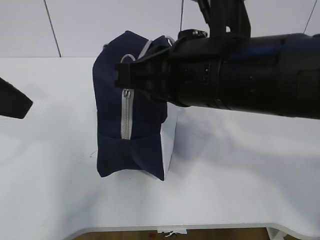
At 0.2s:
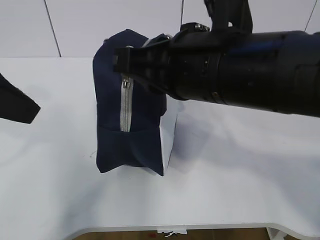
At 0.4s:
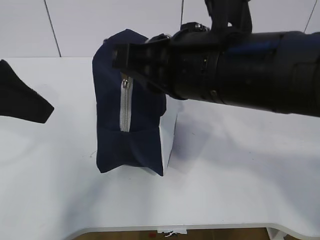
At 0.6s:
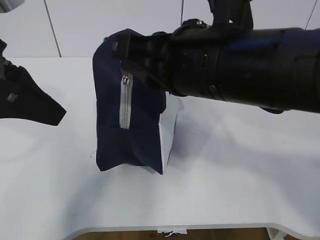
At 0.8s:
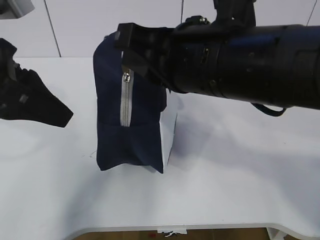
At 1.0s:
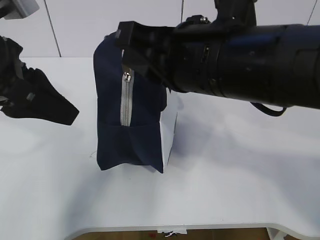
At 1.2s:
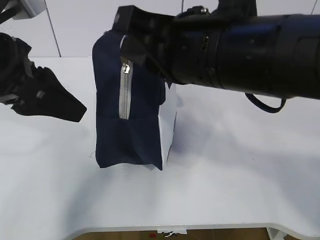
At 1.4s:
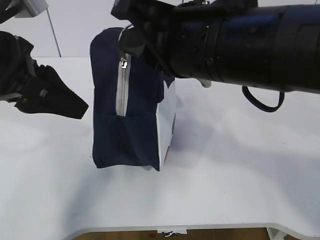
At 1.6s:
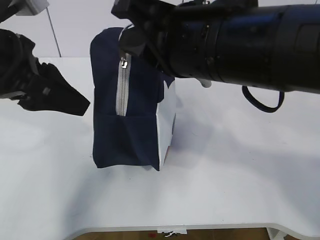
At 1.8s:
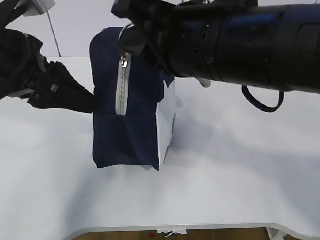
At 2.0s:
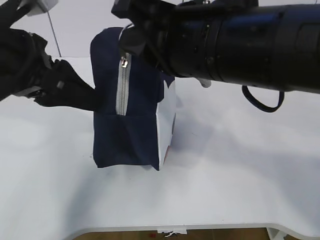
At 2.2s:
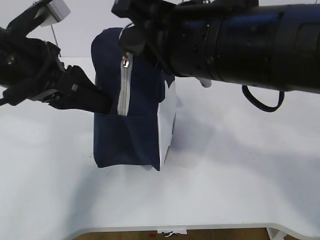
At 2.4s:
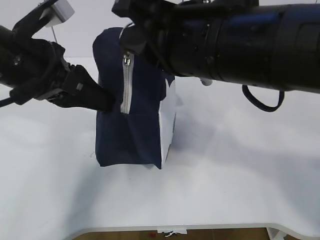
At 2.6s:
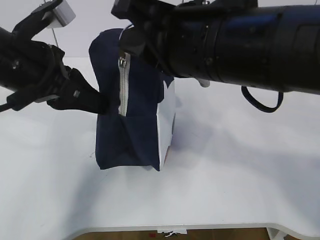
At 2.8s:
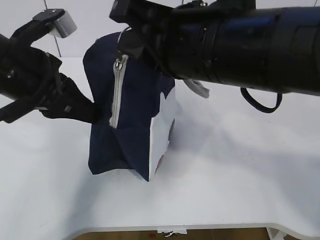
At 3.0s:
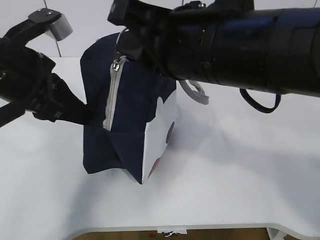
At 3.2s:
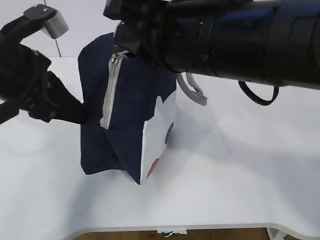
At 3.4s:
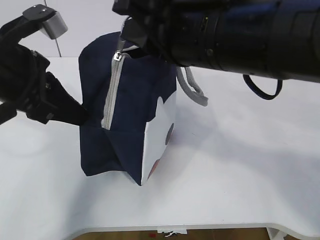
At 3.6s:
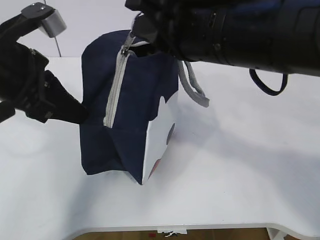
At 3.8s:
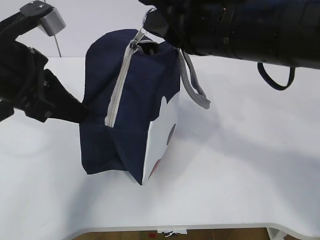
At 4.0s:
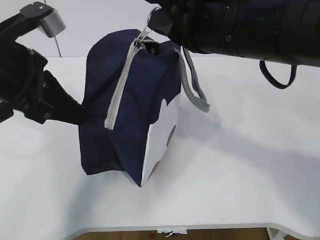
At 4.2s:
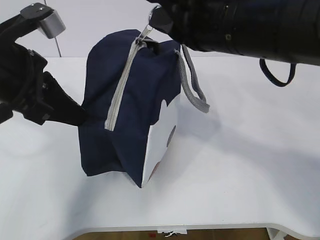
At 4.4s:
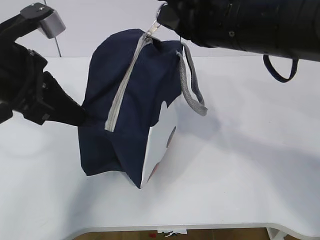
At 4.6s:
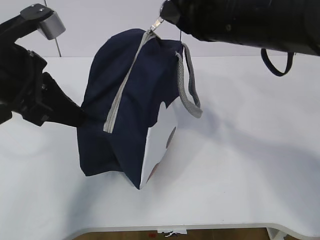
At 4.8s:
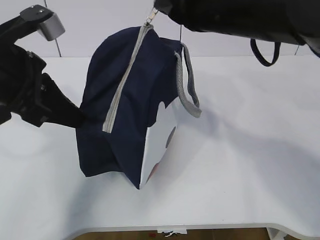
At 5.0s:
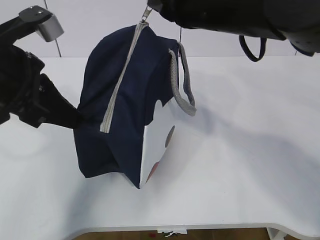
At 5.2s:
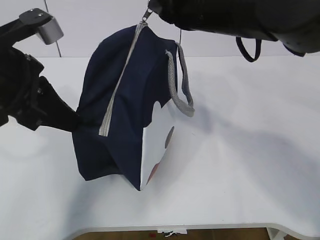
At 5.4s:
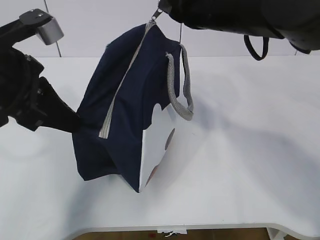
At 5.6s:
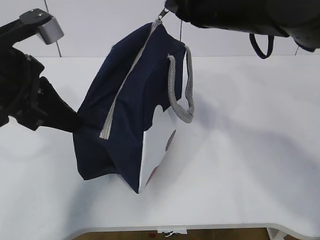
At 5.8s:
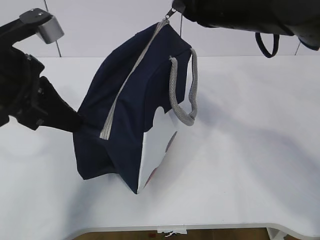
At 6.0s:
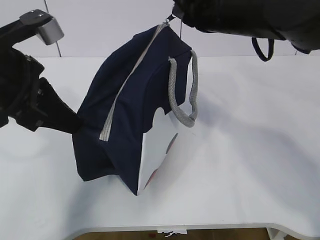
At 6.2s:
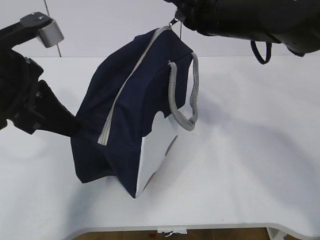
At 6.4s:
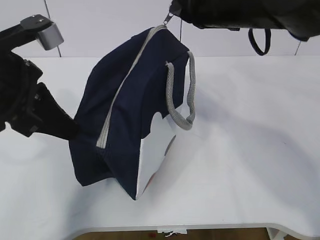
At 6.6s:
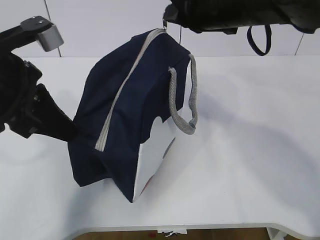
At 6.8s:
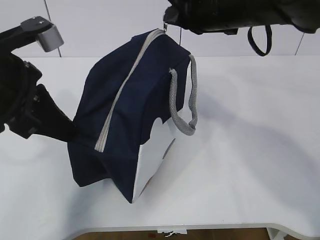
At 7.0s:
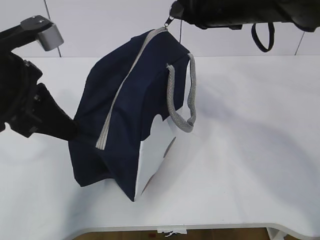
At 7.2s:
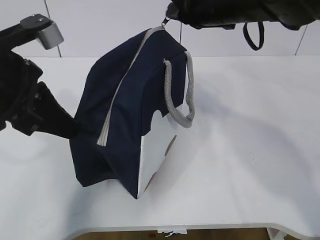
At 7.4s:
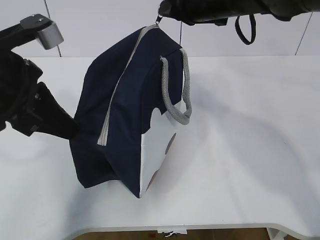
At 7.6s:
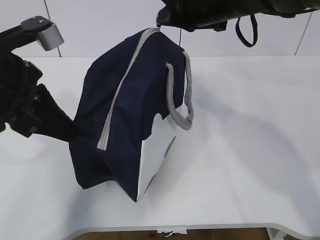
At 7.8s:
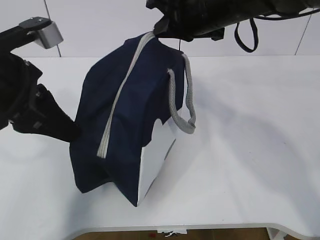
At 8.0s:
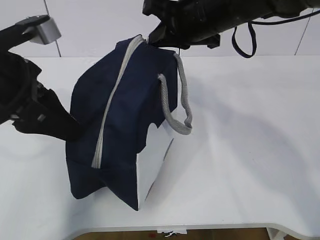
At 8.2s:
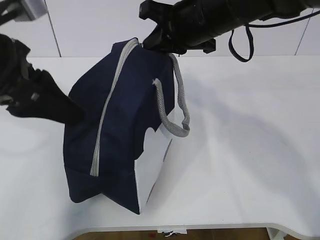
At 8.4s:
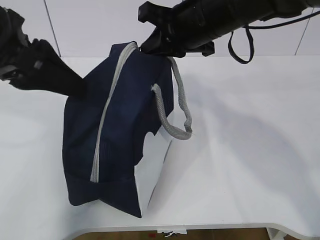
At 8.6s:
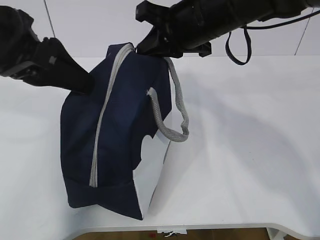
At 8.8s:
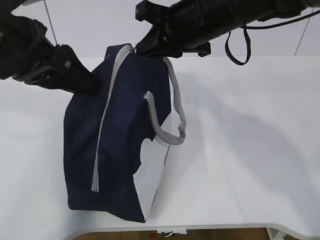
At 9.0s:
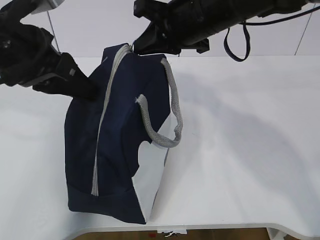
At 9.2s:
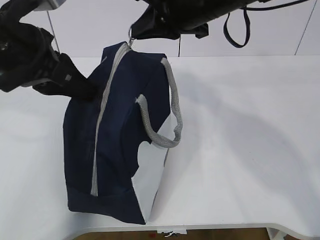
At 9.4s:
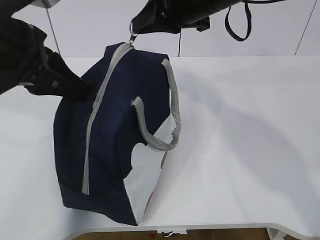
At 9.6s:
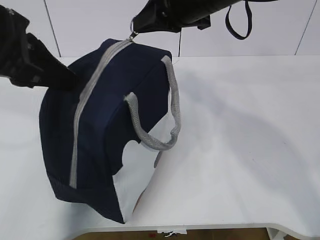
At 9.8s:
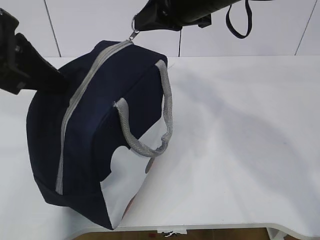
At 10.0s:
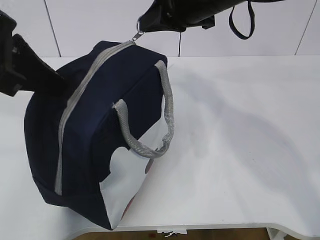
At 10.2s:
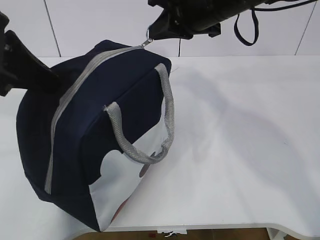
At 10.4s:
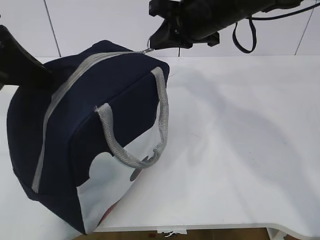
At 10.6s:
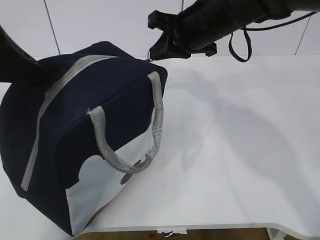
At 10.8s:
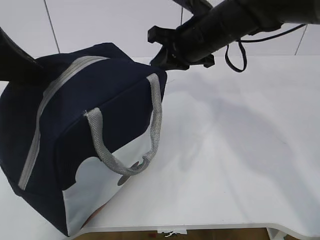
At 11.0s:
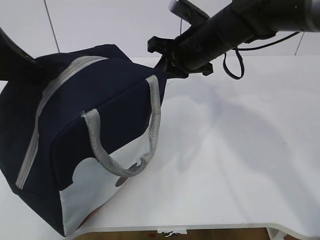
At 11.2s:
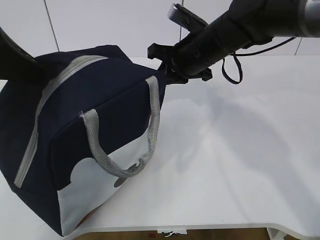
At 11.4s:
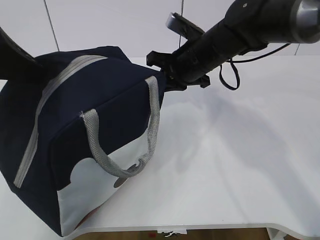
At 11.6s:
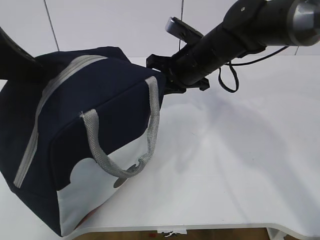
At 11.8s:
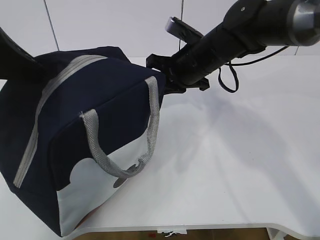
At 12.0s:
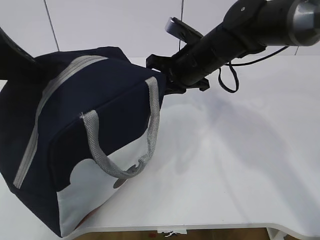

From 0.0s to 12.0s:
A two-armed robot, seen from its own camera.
From 0.0s to 1.6s: The left gripper changes place by roughly 5 cm.
From 1.6s to 3.0s: The left gripper closes.
From 3.0s to 4.4s: The right gripper moves roughly 5 cm.
From 4.4s to 6.0s: The right gripper shifts approximately 10 cm forward.
From 6.0s to 7.6s: The grippers move only a little.
From 7.6s to 9.0s: The left gripper opens, then closes once more.
From 9.0s to 10.4s: The left gripper changes place by roughly 5 cm.
From 10.4s to 12.0s: The right gripper goes approximately 10 cm downward.

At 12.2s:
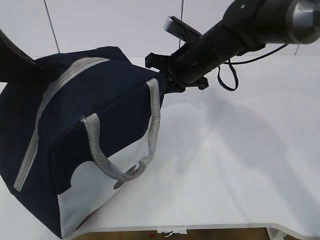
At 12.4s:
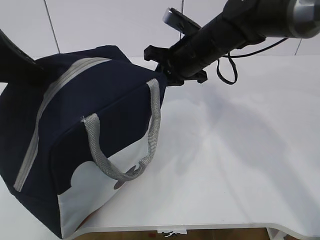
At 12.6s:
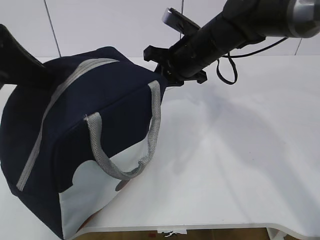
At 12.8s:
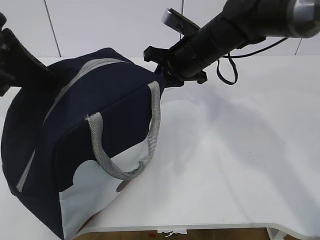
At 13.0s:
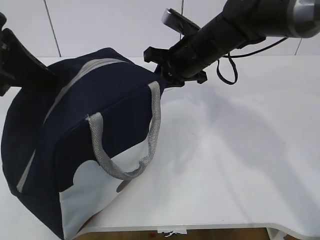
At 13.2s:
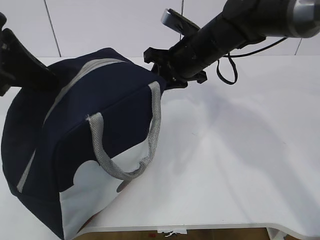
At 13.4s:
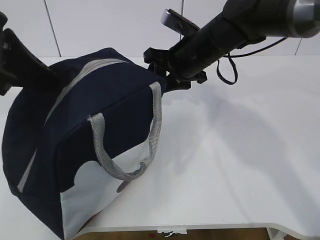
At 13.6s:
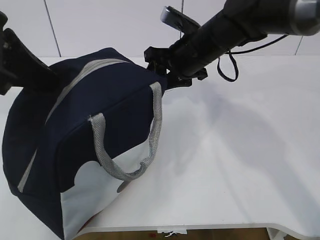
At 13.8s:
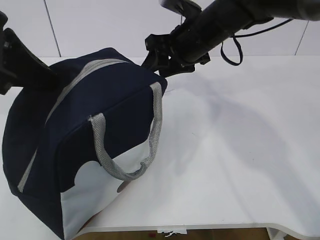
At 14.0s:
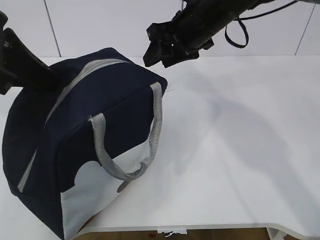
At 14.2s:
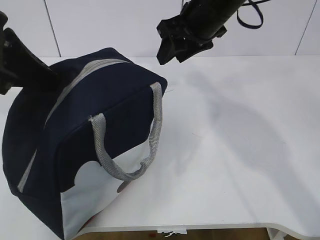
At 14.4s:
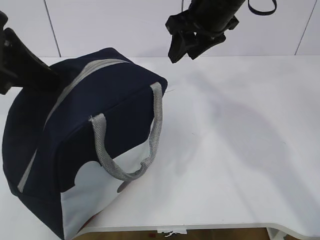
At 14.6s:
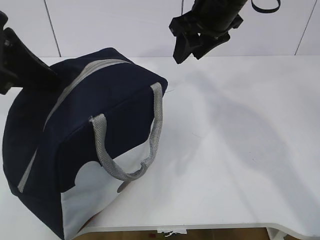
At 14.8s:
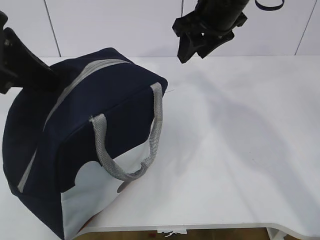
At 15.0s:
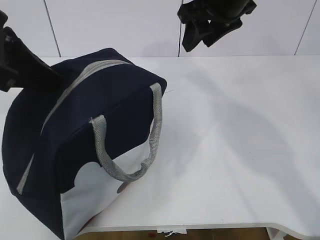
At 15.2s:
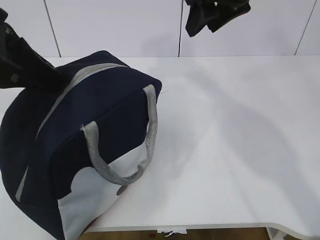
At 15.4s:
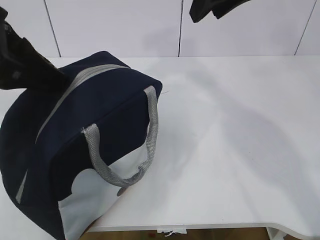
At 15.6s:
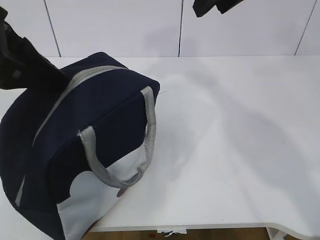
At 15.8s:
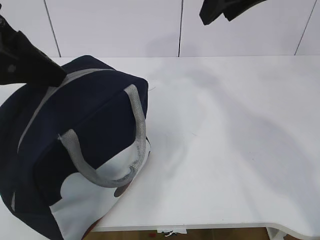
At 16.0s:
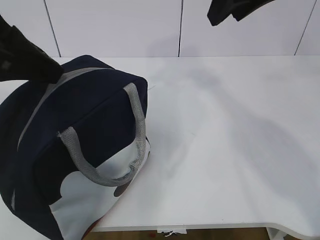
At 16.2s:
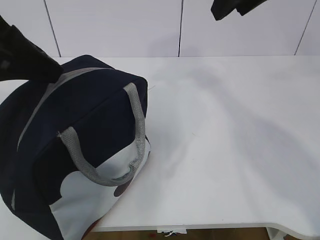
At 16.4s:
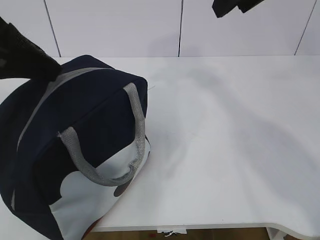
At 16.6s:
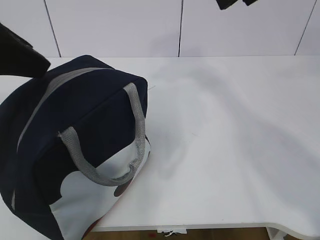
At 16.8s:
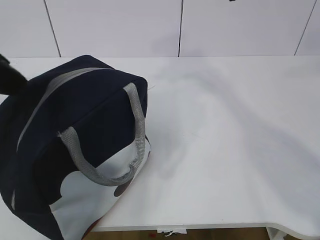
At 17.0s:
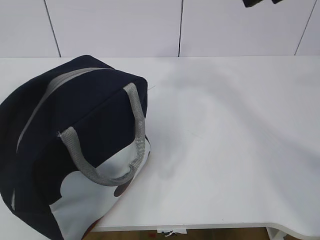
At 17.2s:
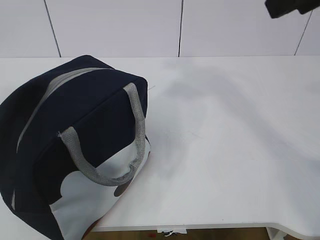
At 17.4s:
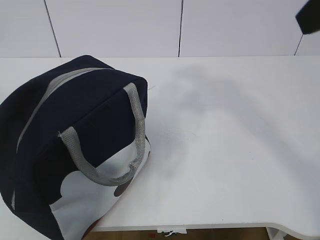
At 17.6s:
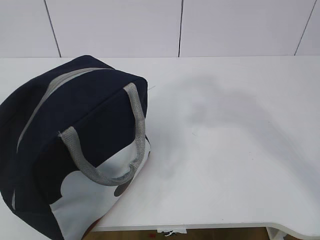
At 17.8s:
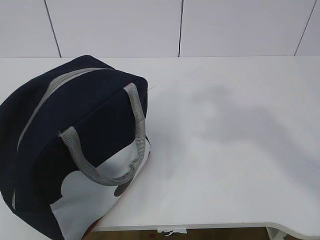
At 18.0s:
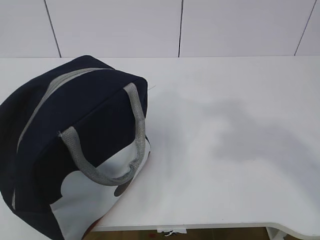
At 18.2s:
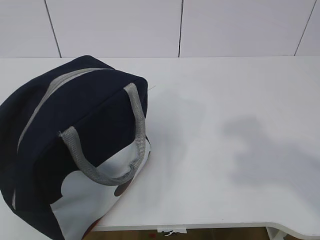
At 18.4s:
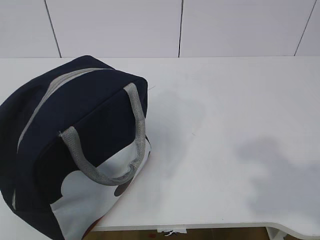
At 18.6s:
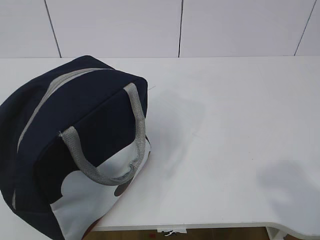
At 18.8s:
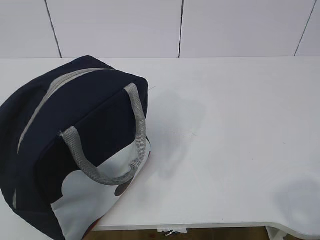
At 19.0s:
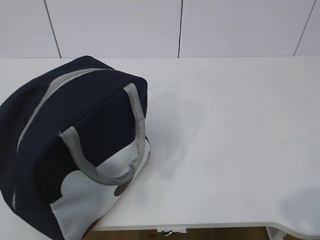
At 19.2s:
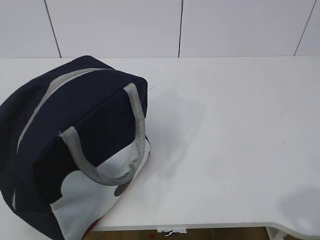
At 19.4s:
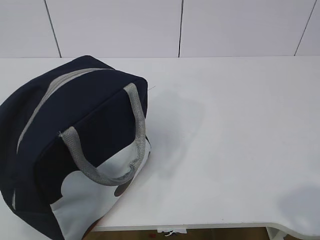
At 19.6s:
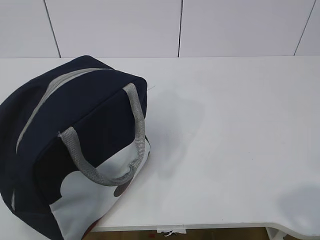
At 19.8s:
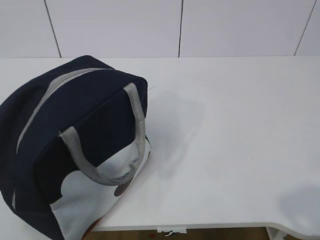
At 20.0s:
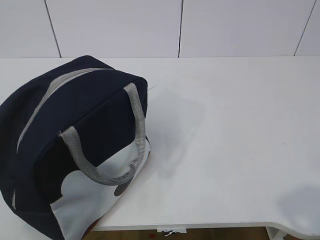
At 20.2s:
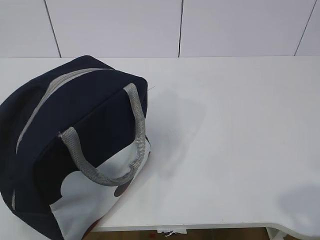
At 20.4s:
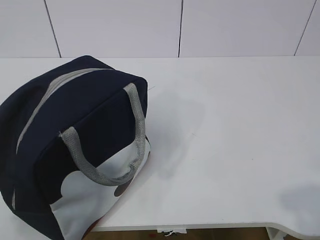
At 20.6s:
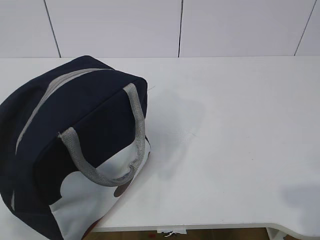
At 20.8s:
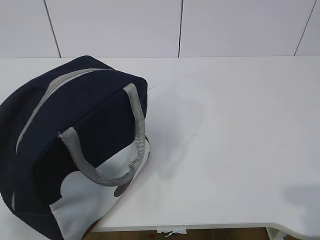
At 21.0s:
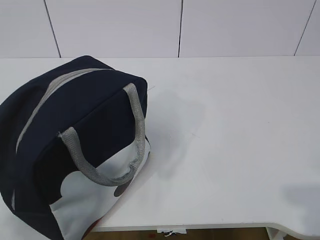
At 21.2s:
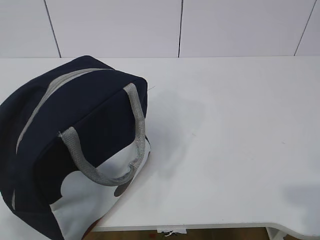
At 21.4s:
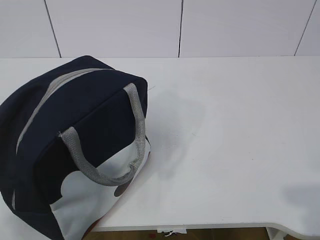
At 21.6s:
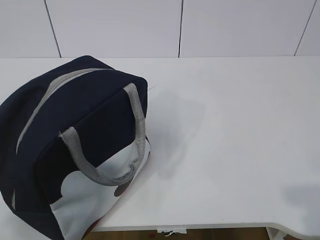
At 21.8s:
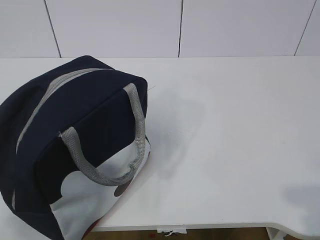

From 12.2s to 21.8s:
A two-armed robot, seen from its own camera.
From 12.2s to 13.8s: The right gripper opens.
From 13.8s to 15.4s: The left gripper opens its fingers. The right gripper is displaced upward by approximately 15 cm.
From 15.4s to 17.0s: The left gripper moves backward, about 5 cm. Meanwhile the right gripper travels backward by some 10 cm.
From 17.0s to 18.6s: The left gripper moves backward and to the left, some 25 cm, while the right gripper goes about 30 cm backward.

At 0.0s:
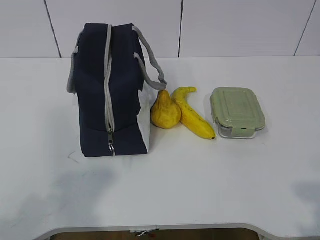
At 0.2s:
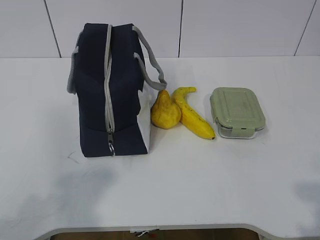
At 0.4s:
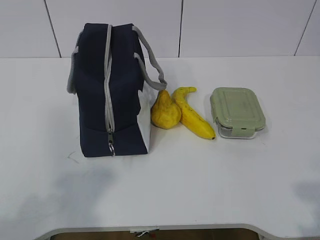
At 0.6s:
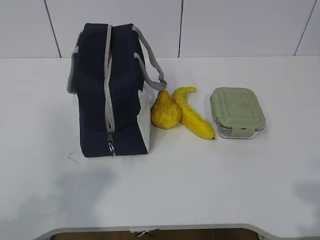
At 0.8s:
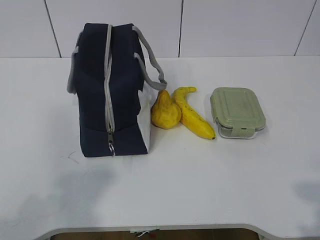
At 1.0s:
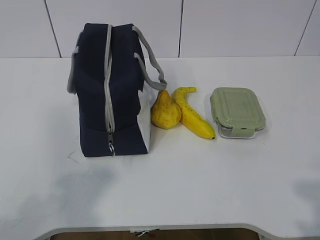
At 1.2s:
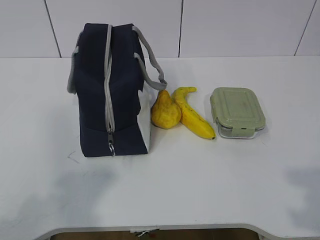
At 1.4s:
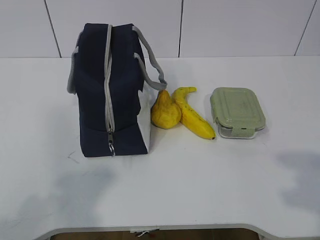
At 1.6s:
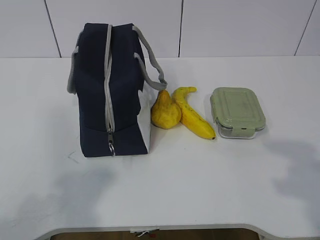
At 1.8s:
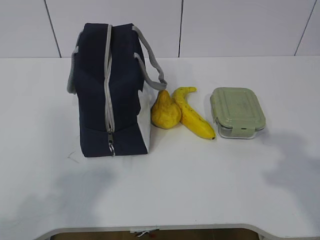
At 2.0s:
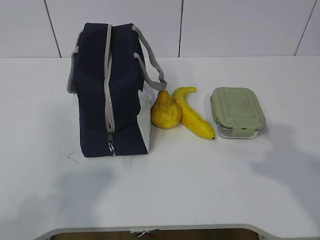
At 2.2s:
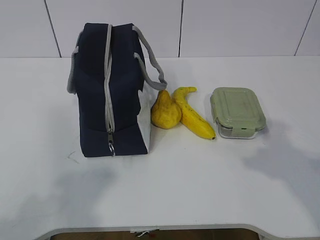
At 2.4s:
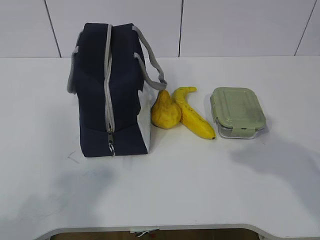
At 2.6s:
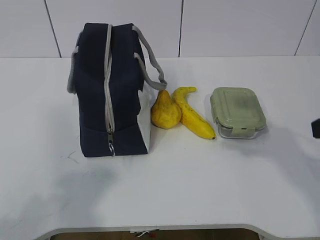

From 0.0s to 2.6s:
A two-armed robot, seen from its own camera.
From 1.2s to 2.6s: The right gripper shifts approximately 20 cm forward.
